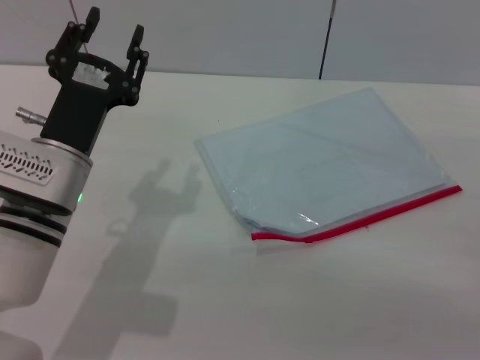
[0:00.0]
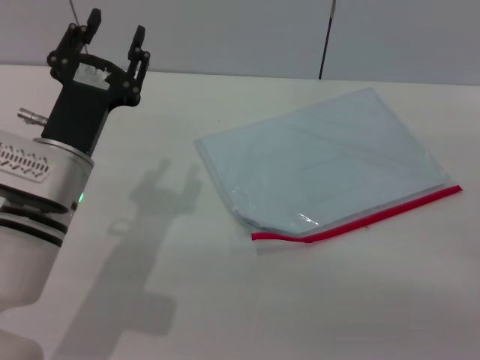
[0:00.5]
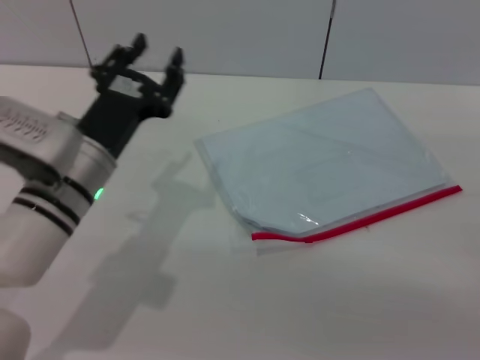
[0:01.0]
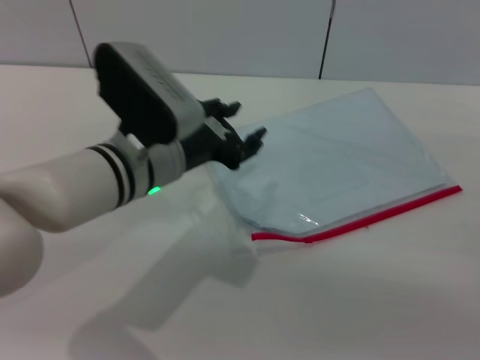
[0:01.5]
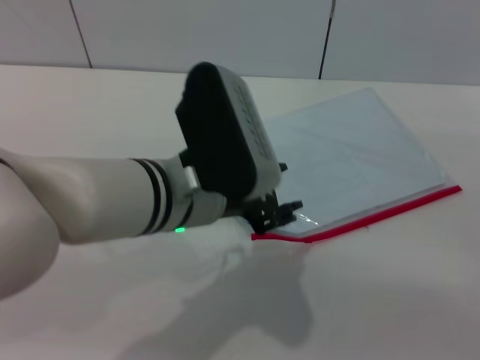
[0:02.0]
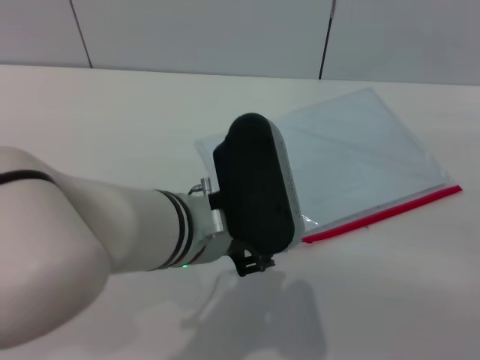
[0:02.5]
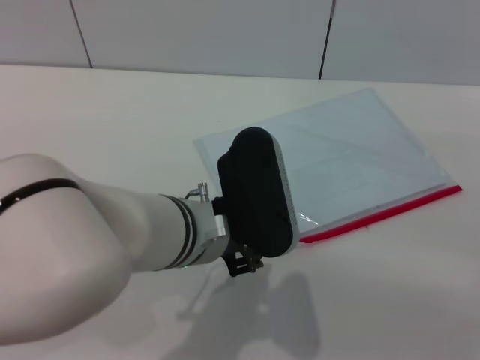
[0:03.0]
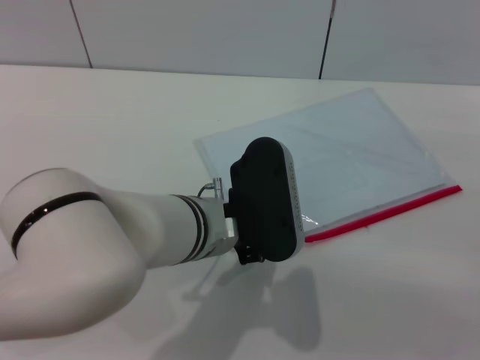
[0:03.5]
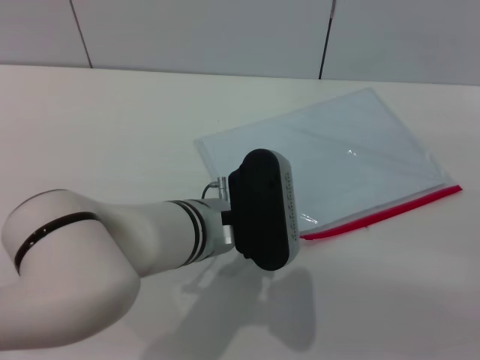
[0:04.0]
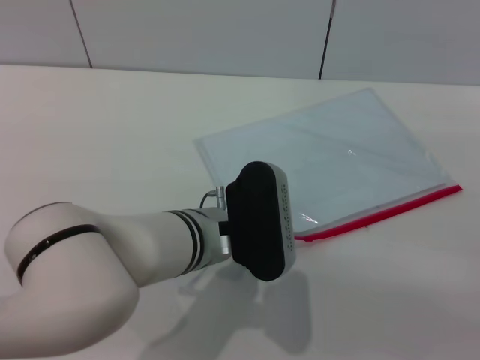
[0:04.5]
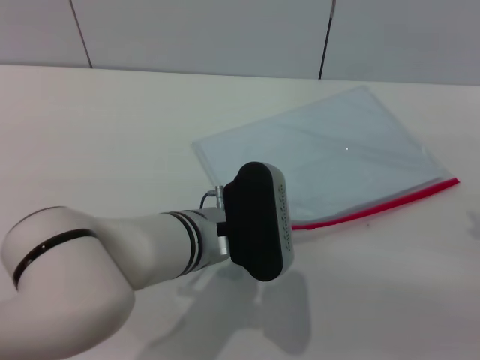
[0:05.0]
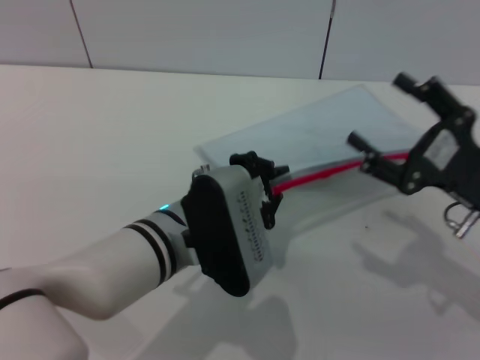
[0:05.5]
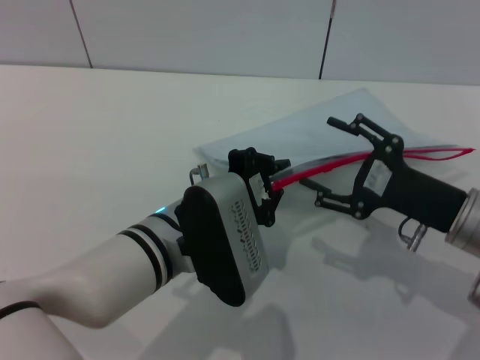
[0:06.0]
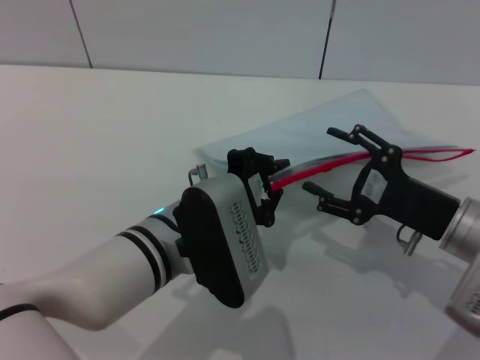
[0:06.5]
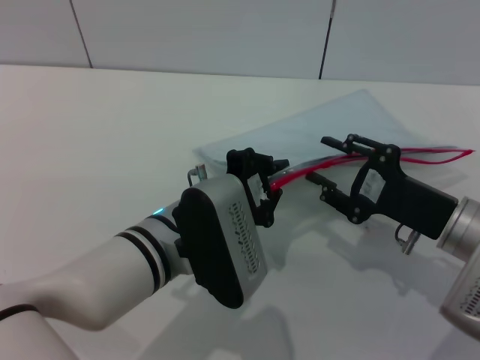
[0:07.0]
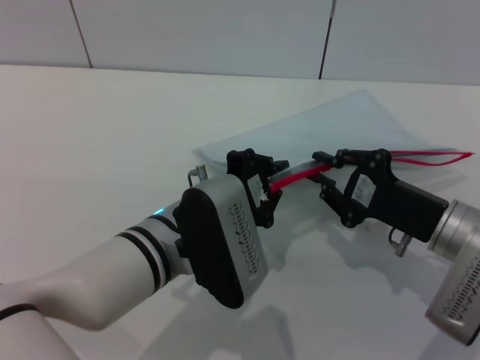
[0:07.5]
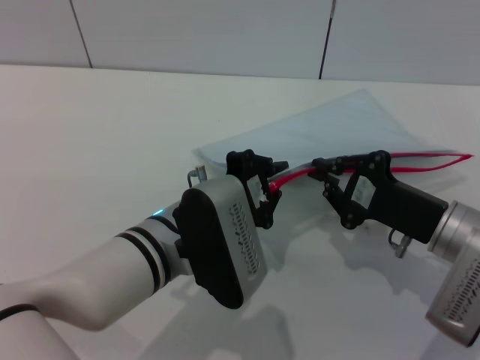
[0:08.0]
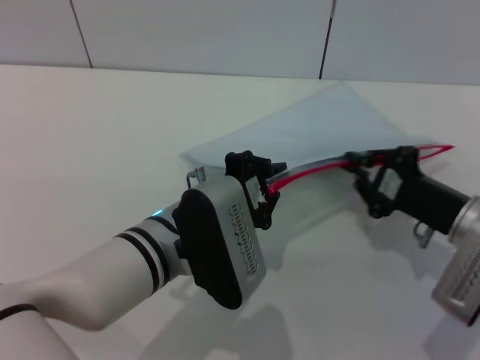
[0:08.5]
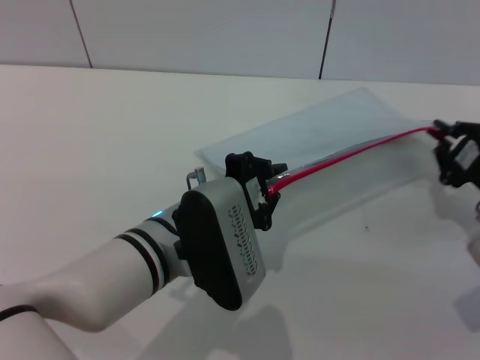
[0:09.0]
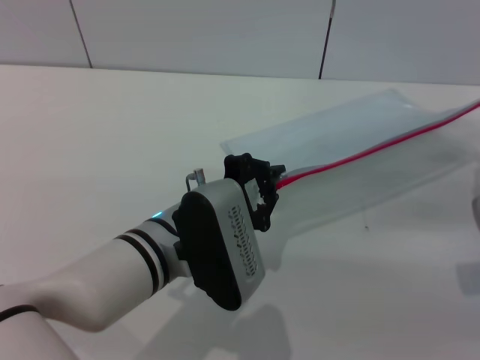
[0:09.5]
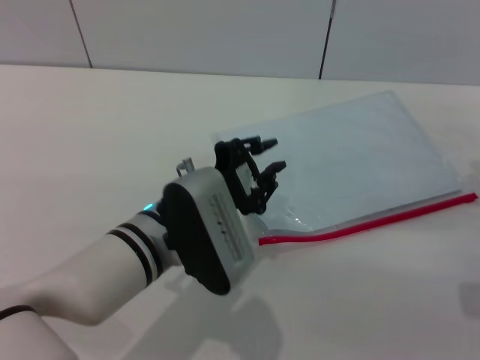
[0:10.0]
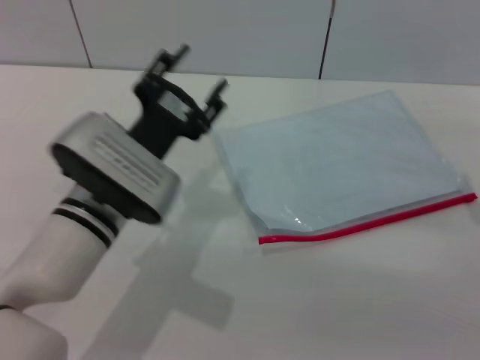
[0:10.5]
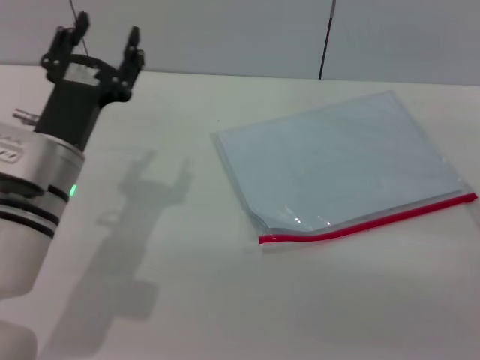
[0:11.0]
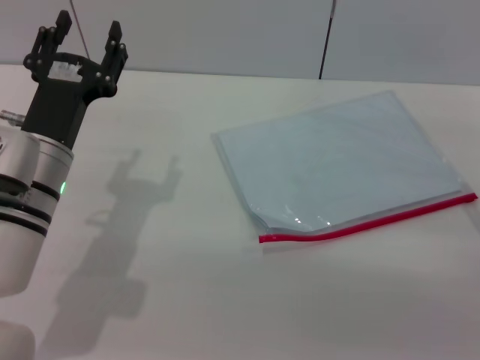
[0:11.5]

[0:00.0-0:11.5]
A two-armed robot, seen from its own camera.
Step, 0:00.0 to 0:06.0: Pick up the transparent plastic bag with the left gripper.
Step, 0:06.5 to 0:09.5: Pulling up the zipper on the transparent plastic bag with the right gripper to close it.
Step, 0:10.0 to 0:10.5: Place the transparent plastic bag.
0:00.0 to 0:02.0: The left gripper travels to the right and upward by roughly 10 cm.
0:02.0 to 0:04.0: The left gripper goes roughly 5 cm downward.
0:04.0 to 0:06.0: The left gripper closes up. Meanwhile the right gripper is displaced to the left by some 10 cm.
0:06.0 to 0:07.5: The right gripper closes its fingers.
0:07.5 to 0:09.5: The right gripper moves to the right, roughly 10 cm.
0:09.5 to 0:11.5: The right gripper moves roughly 5 cm, and opens up. The left gripper moves to the left, some 10 cm, and opens its fingers.
